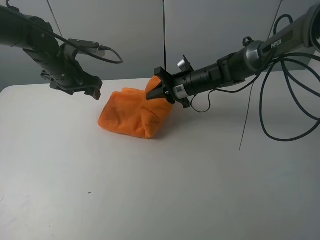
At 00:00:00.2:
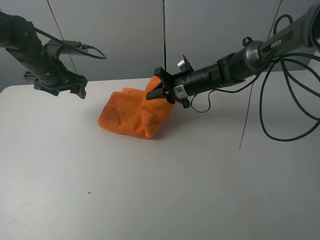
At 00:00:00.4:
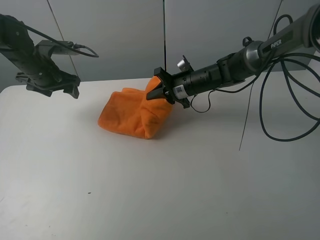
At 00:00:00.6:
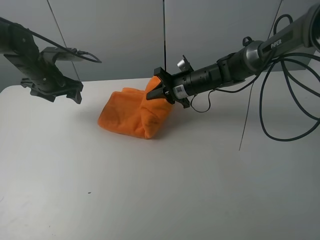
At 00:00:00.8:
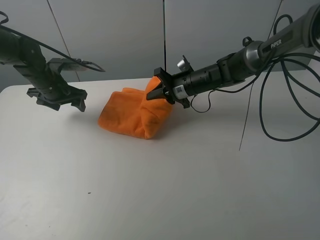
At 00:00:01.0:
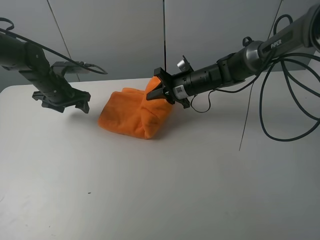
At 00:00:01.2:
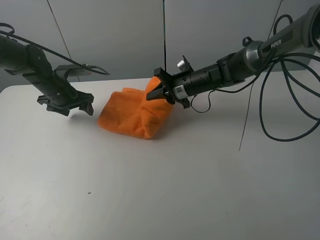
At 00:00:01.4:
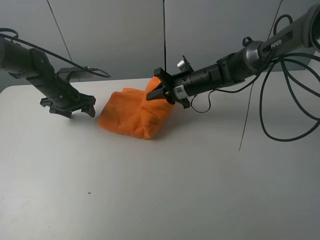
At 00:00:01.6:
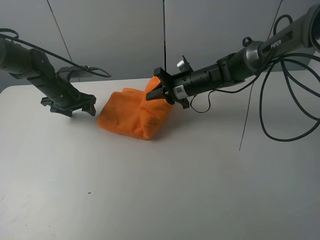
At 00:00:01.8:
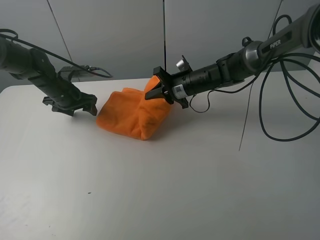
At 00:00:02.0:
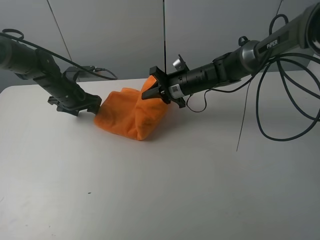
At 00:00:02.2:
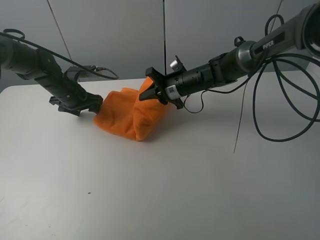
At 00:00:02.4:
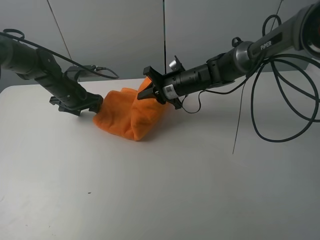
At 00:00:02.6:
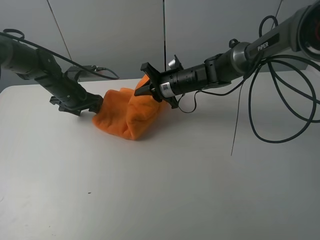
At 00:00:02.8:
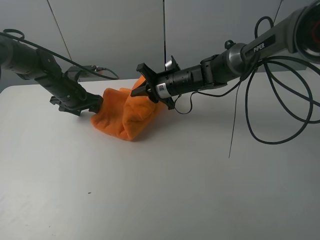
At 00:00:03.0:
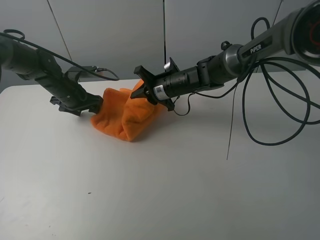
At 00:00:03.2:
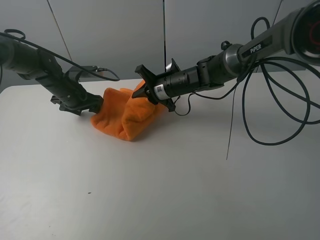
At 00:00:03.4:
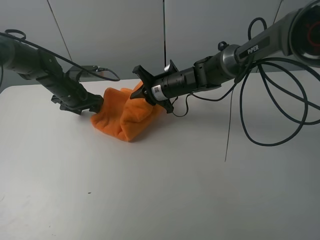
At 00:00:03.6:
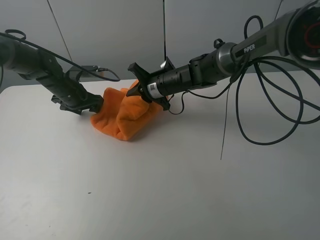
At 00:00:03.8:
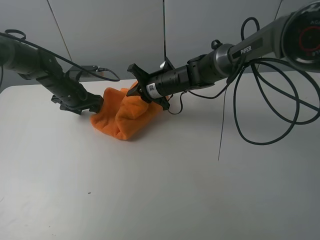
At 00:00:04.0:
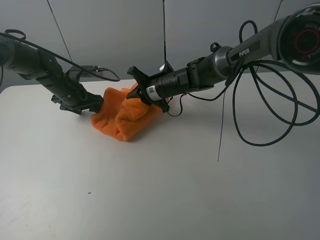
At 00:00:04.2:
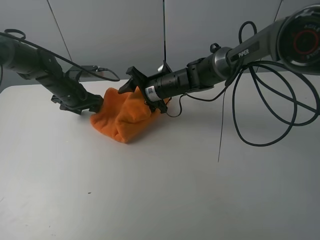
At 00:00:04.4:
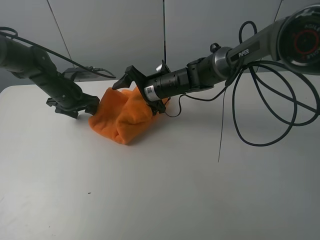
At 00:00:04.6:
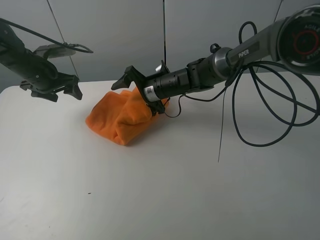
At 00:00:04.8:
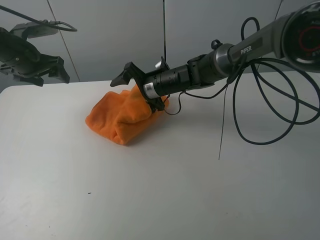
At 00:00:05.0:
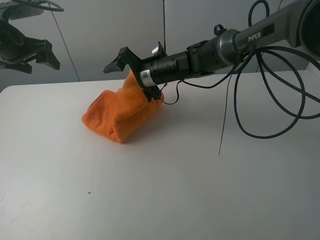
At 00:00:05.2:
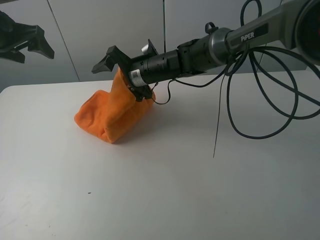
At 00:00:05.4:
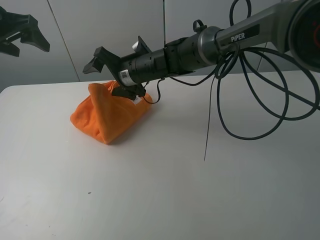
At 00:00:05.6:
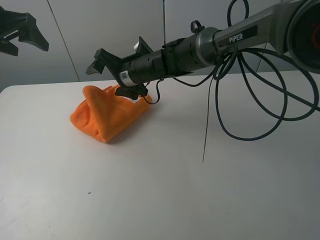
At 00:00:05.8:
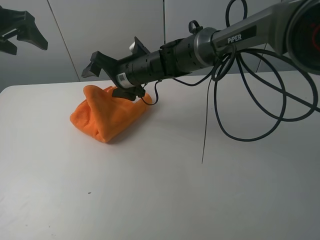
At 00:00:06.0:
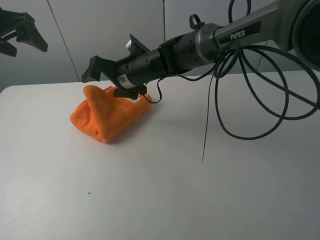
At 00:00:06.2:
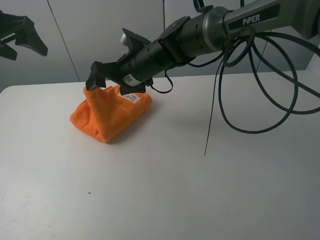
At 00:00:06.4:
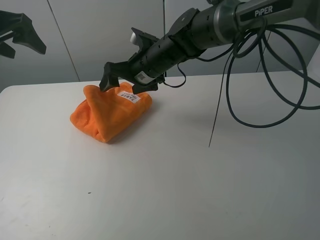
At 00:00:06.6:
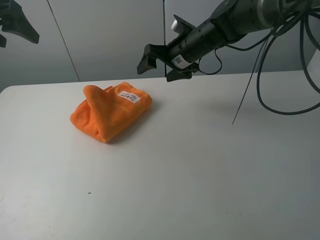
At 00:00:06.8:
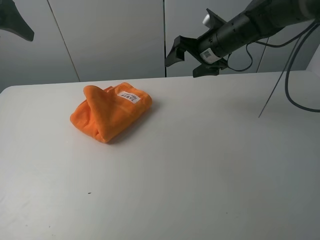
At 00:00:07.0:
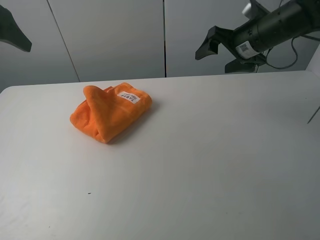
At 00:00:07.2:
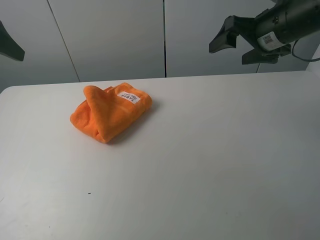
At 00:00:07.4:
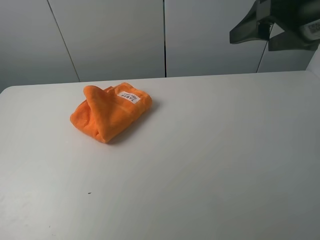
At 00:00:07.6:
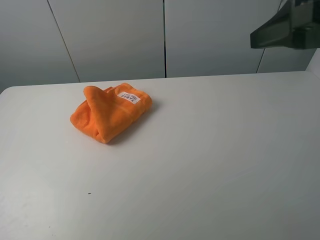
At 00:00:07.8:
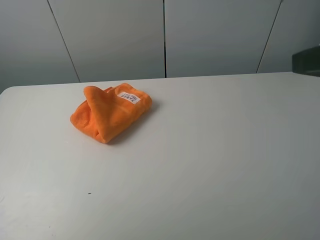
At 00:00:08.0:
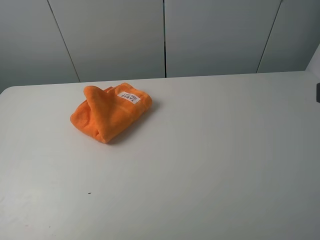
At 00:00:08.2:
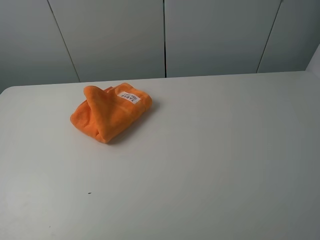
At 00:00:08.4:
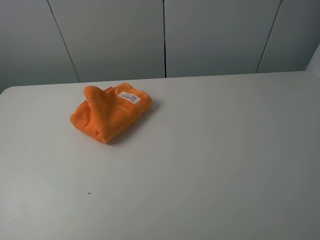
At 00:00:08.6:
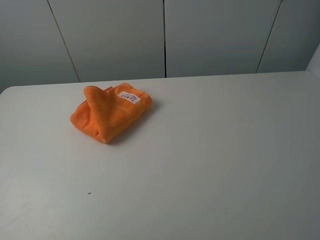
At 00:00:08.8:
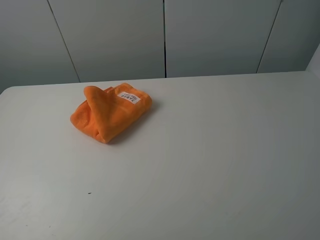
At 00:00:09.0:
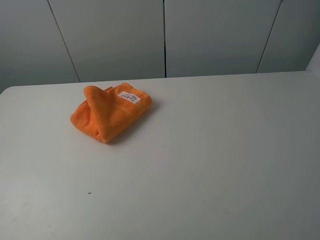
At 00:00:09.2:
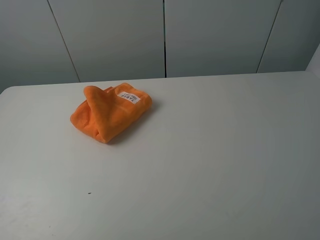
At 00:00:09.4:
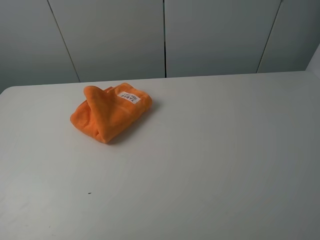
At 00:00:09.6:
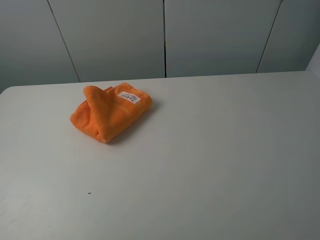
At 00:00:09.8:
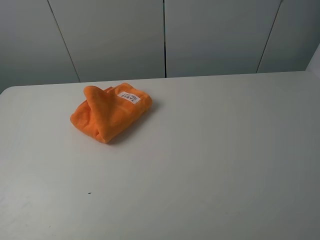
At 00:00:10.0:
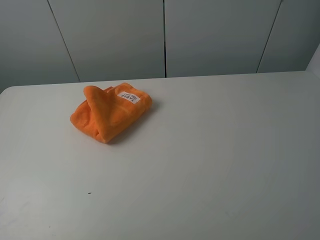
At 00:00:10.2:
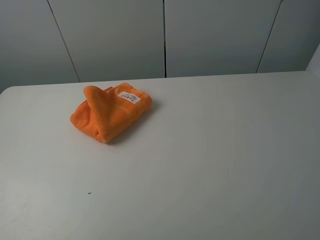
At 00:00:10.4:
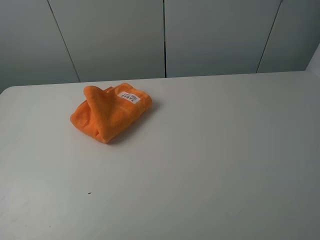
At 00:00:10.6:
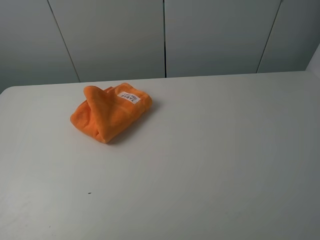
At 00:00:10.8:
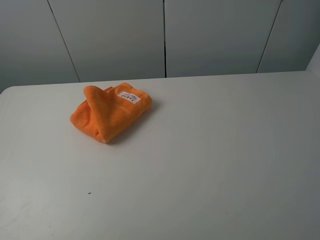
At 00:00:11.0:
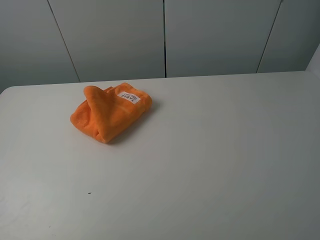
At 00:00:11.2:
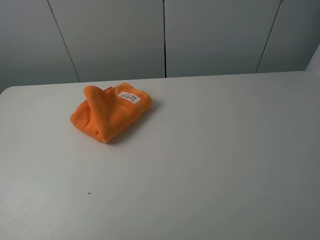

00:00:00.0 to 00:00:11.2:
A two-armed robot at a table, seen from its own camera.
Task of the whole recording: fold the towels on the table.
Step, 00:00:00.0 to 00:00:06.6: Fold the orange towel from right to left with right gripper.
00:00:00.0 to 00:00:01.6: The left gripper goes some 10 cm downward.
00:00:01.6 to 00:00:03.2: There are only small adjustments of the grippers.
00:00:03.2 to 00:00:04.8: The left gripper goes about 15 cm upward and to the left. The right gripper opens its fingers.
00:00:04.8 to 00:00:06.4: The right gripper is displaced upward by approximately 5 cm; the left gripper shifts roughly 10 cm upward and backward.
00:00:06.4 to 00:00:08.0: The right gripper moves backward, to the right and upward, some 40 cm. Meanwhile the left gripper goes about 35 cm backward.
